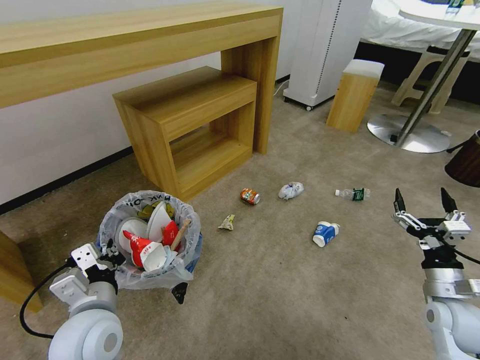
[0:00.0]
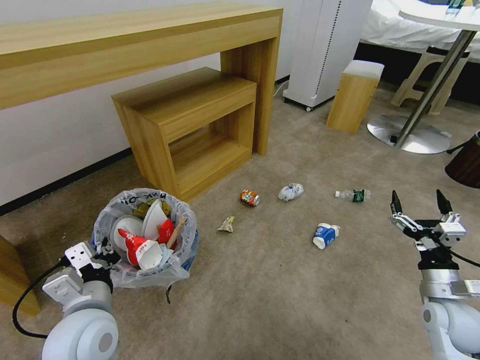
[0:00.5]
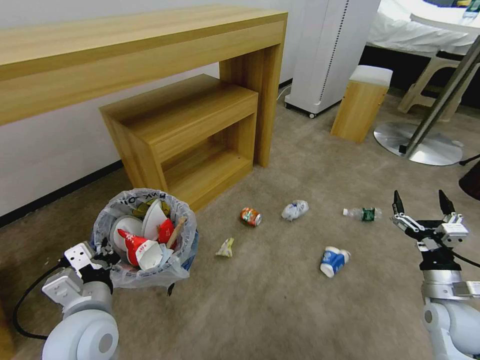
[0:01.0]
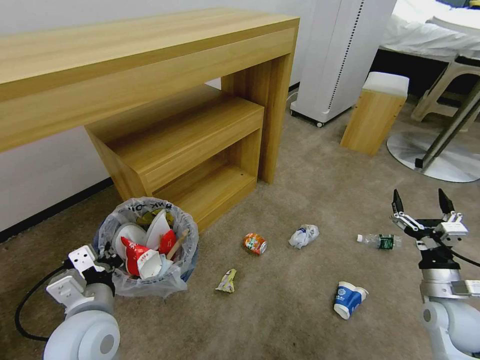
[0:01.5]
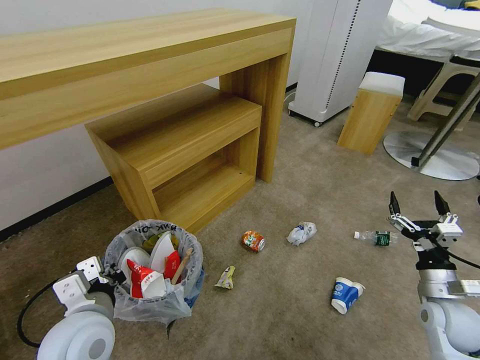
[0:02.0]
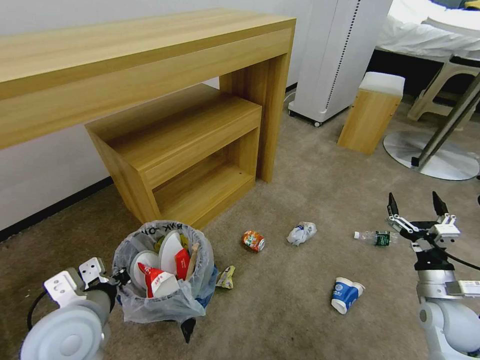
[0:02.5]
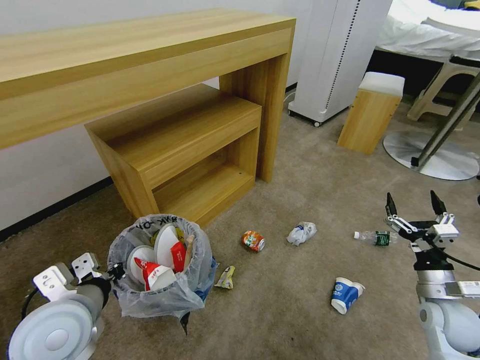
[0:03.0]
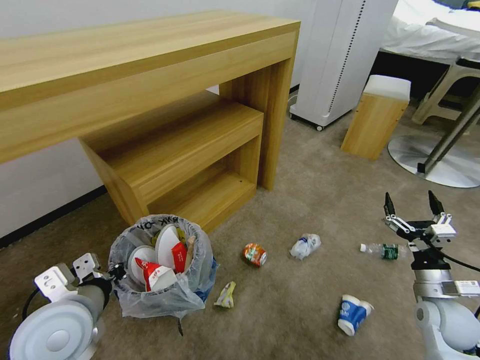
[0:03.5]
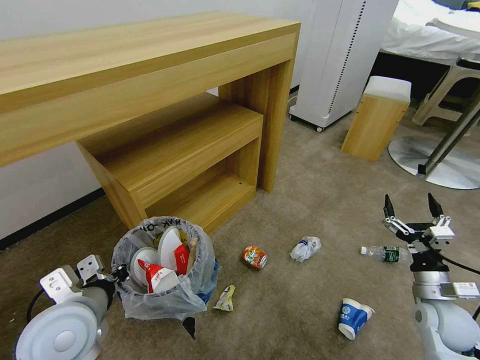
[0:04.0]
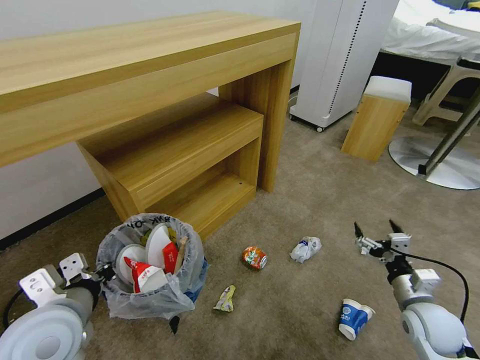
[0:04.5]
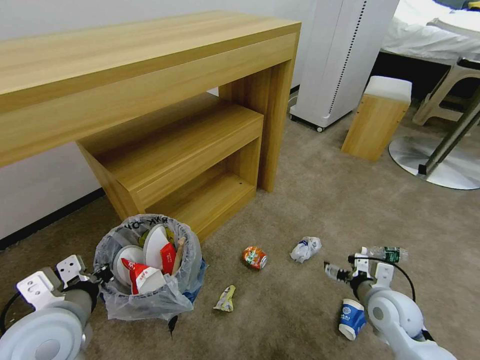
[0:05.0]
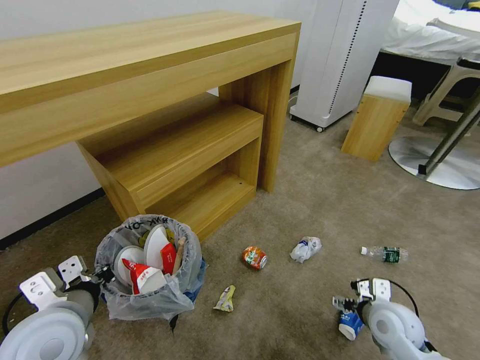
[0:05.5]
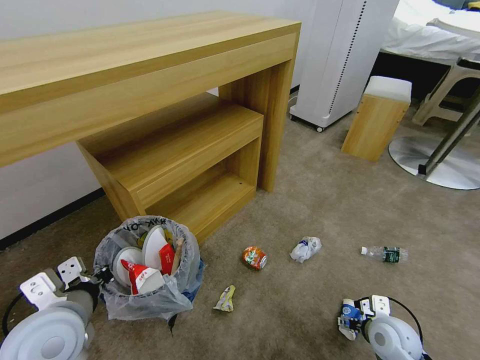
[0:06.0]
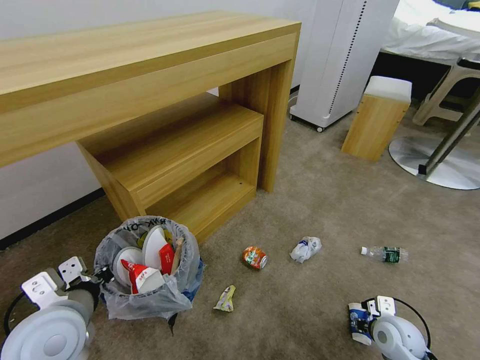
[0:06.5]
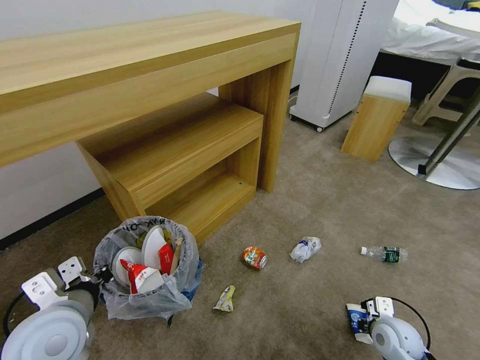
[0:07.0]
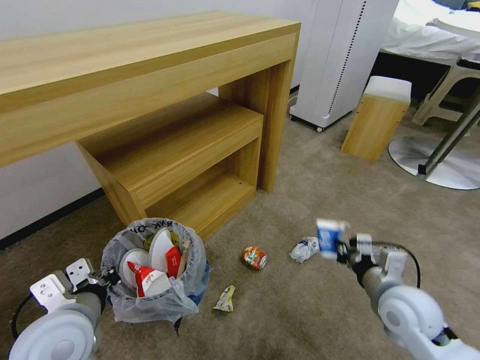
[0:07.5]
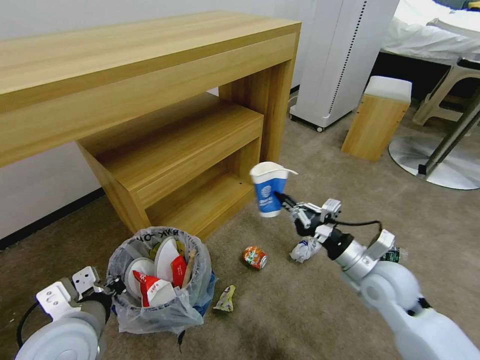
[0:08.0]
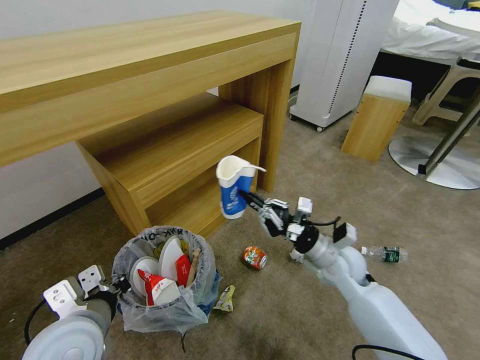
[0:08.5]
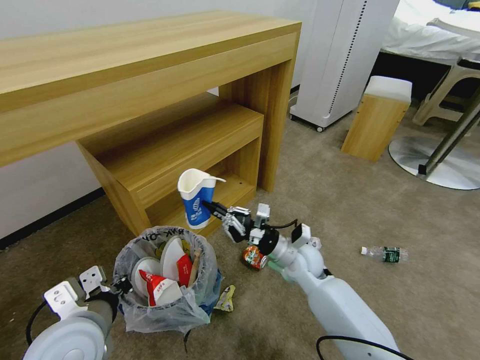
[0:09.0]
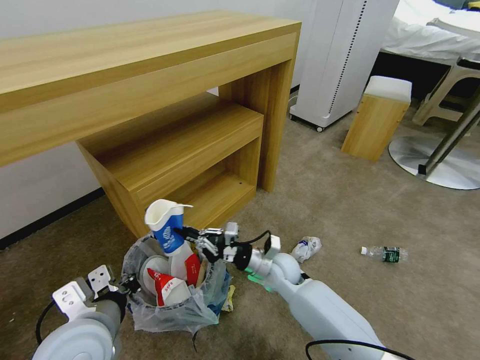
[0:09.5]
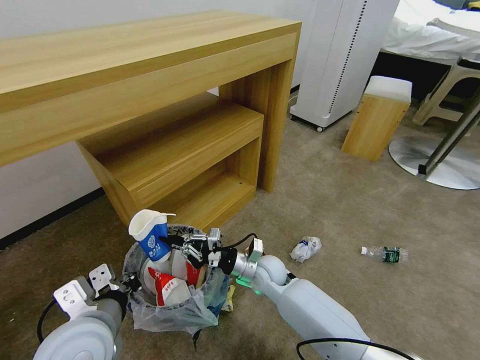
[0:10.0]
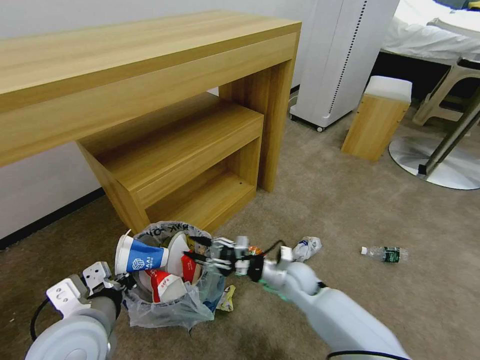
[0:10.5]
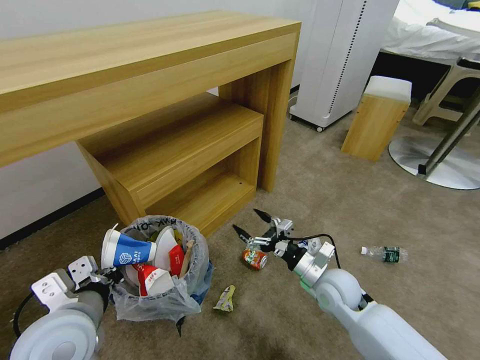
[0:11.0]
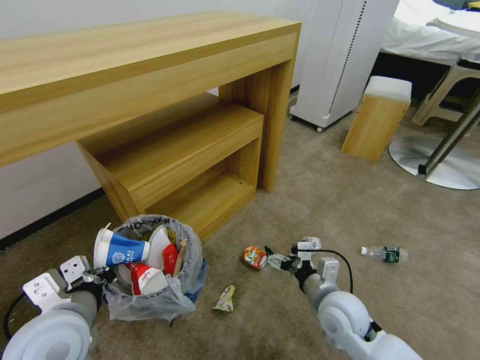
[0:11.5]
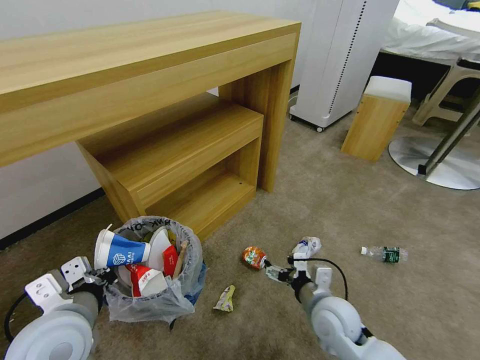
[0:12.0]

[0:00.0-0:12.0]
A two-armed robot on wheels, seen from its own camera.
Task of the whole recording: Pick up the trash bin and place the garbage on the floor into it.
4.0 to 6.0 s: The right gripper moves to the left and downward, roughly 10 cm.
6.0 to 8.0 s: The right gripper shifts some 15 cm upward and forward, and closes up.
8.0 to 10.0 s: The right gripper heads to the left, downward and forward, covering approximately 25 cm.
10.0 to 12.0 s: The right gripper is displaced to the right and backward by approximately 20 cm, and opens up.

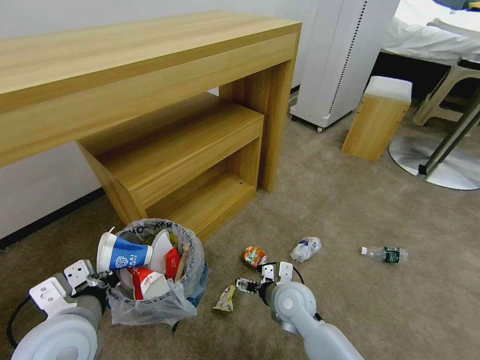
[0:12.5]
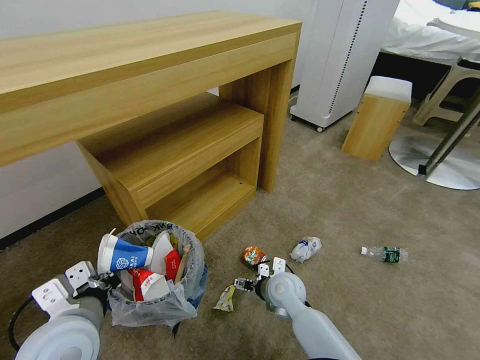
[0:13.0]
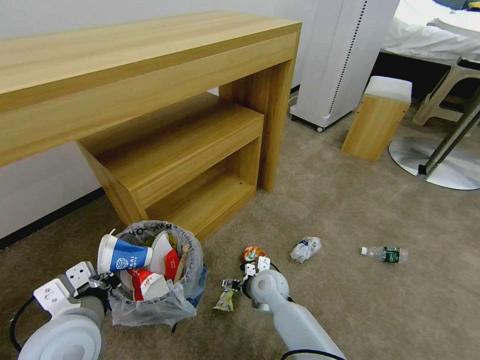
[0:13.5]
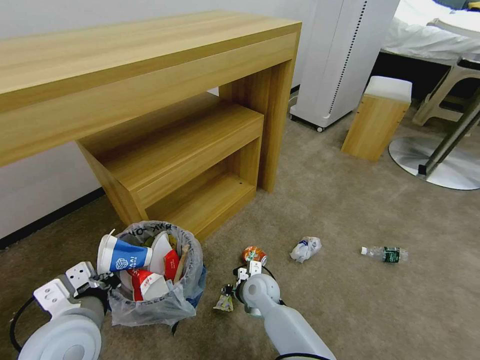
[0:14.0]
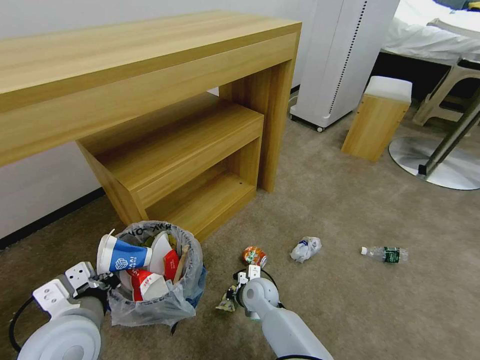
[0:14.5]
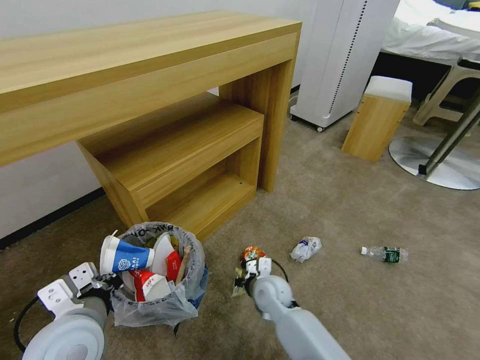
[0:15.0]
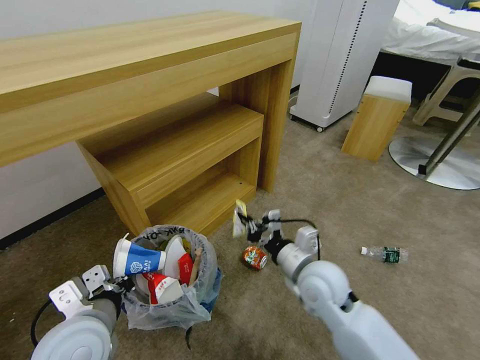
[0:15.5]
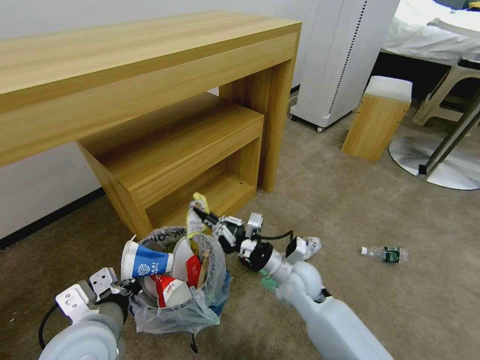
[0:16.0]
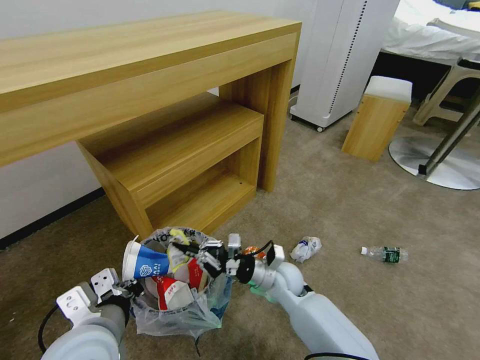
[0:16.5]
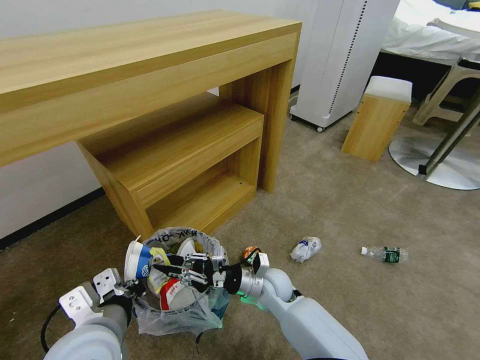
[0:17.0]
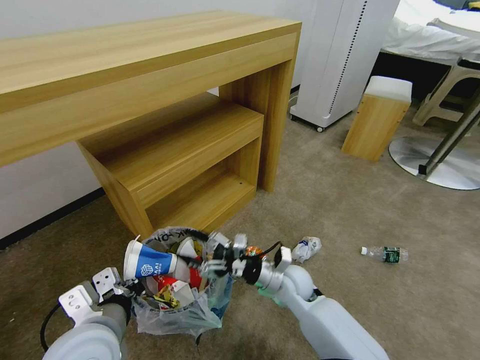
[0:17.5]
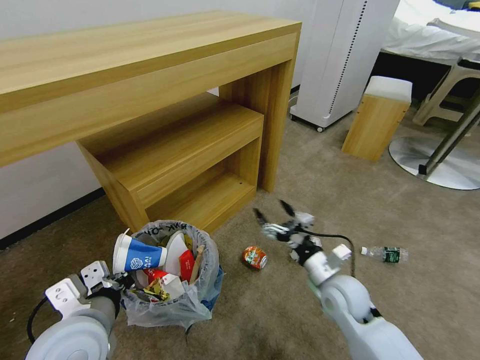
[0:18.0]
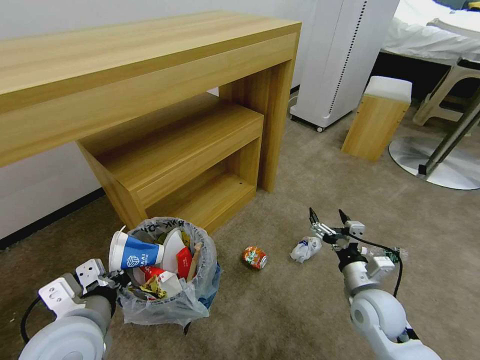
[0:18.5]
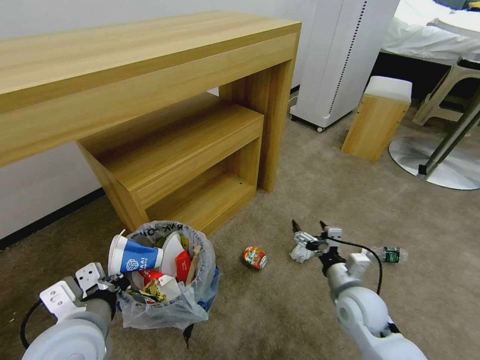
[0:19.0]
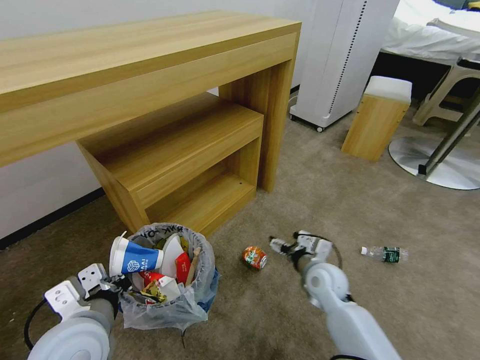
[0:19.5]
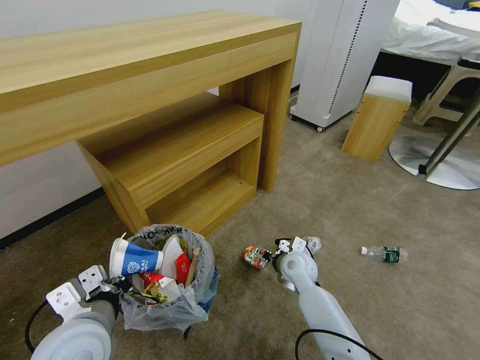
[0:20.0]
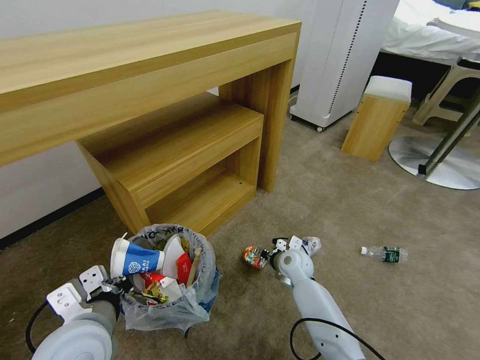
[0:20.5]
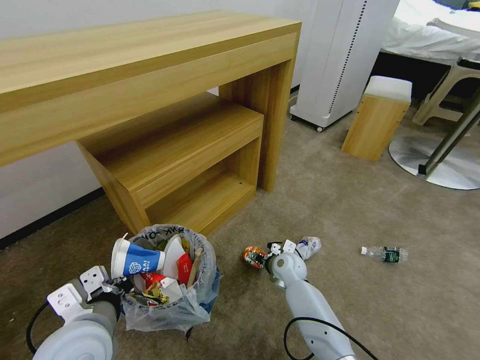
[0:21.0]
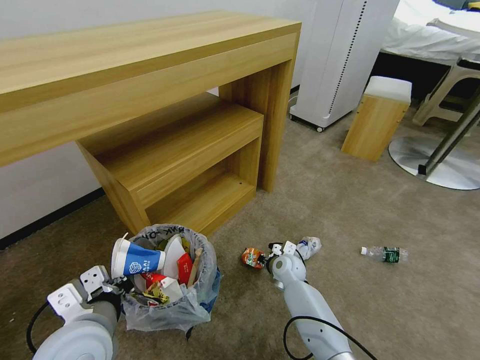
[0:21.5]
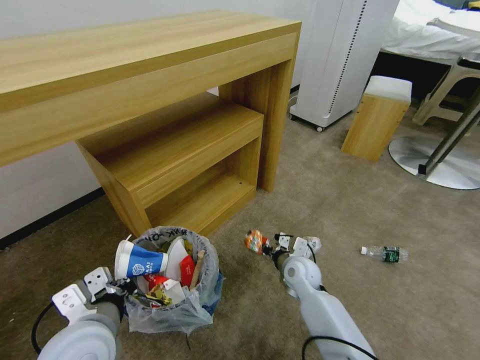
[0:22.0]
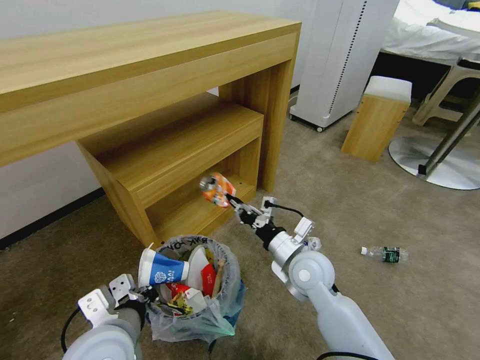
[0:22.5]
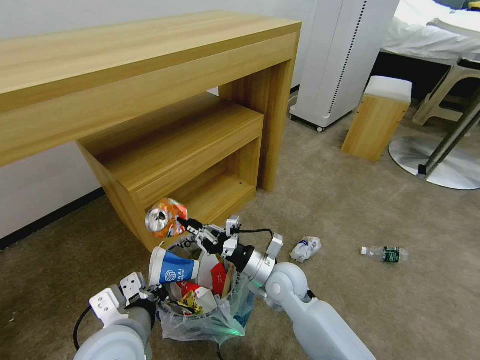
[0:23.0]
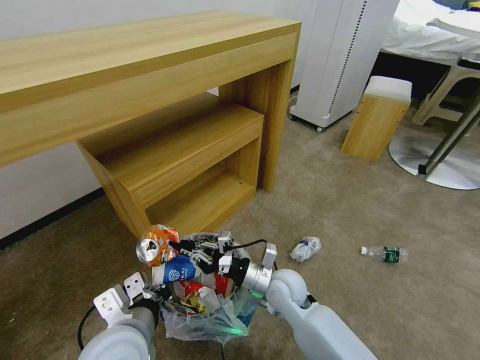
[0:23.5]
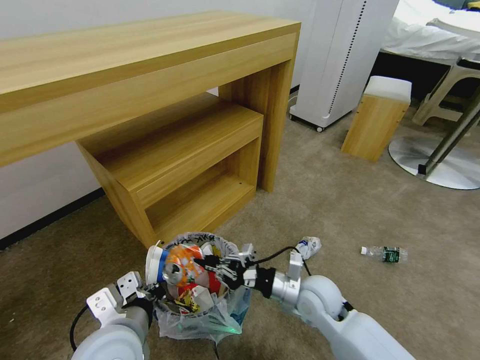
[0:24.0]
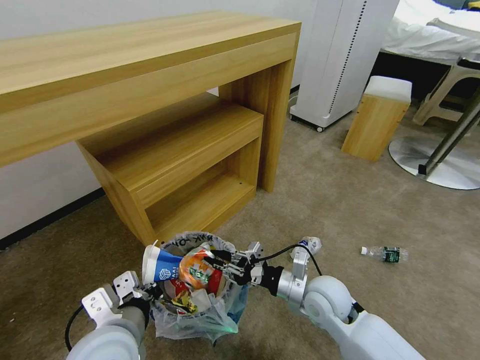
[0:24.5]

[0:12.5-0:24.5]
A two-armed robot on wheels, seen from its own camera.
Task of the whole recording: Pick up the trash bin and place the garbage on the floor into it.
12.5 to 14.5 s: The right gripper travels downward and to the left by some 10 cm, and closes.
14.5 to 16.5 s: The right gripper moves upward and to the right, about 10 cm.
16.5 to 18.5 s: The right gripper moves to the right and backward, approximately 20 cm, and opens.
18.5 to 20.5 s: The right gripper moves forward, to the left and downward, about 20 cm.
20.5 to 22.5 s: The right gripper travels upward and backward by about 15 cm, and closes its fingers.
22.5 to 24.5 s: The right gripper changes place by roughly 5 cm.

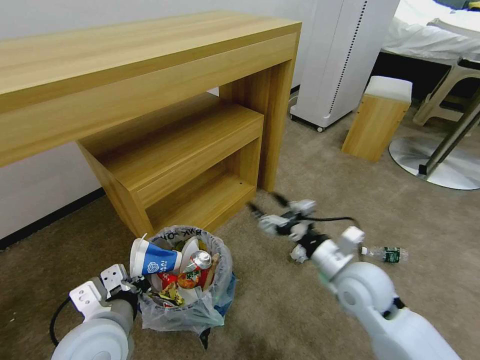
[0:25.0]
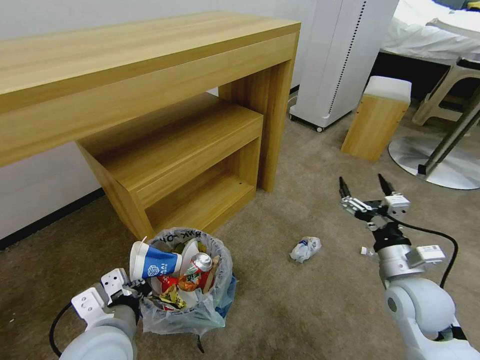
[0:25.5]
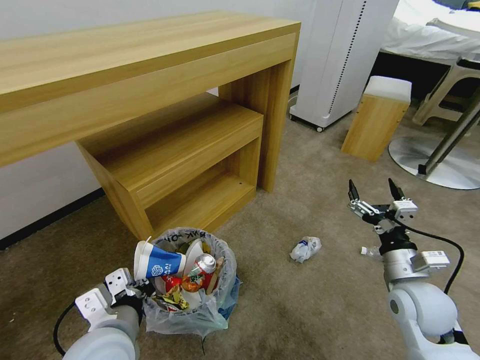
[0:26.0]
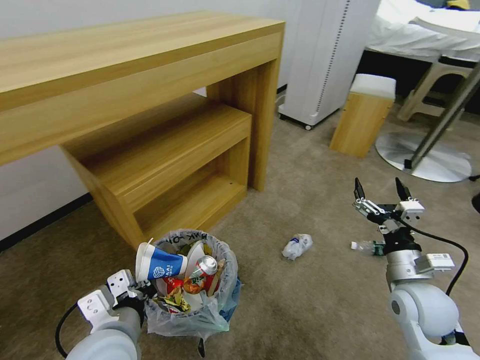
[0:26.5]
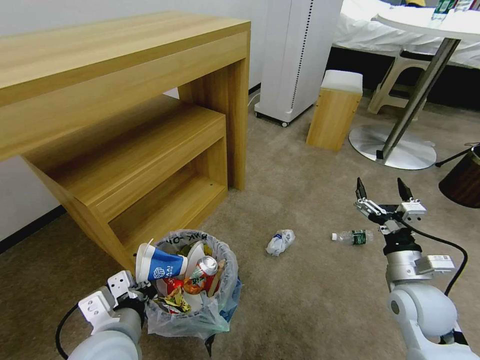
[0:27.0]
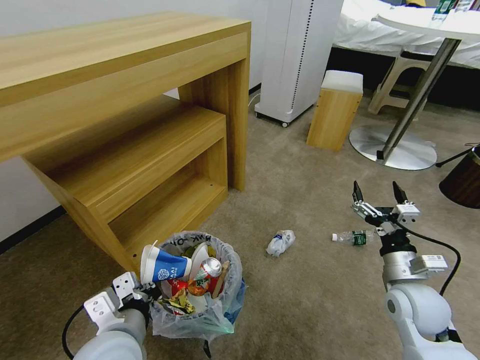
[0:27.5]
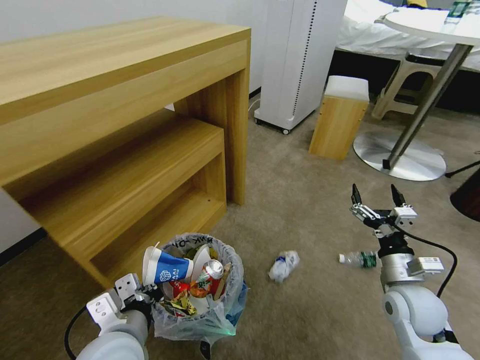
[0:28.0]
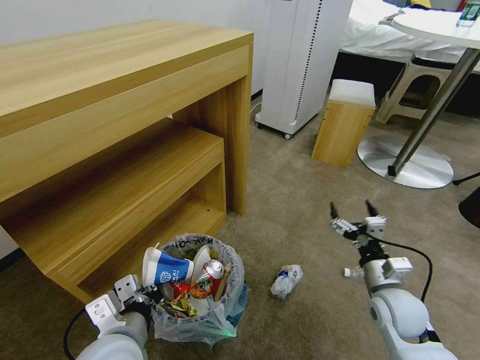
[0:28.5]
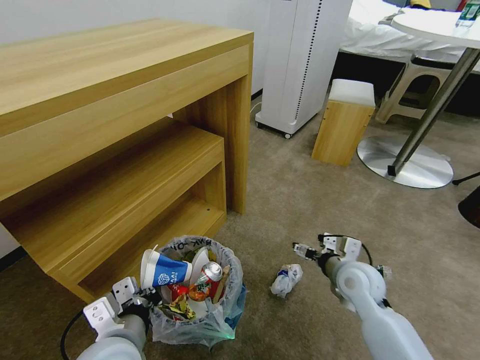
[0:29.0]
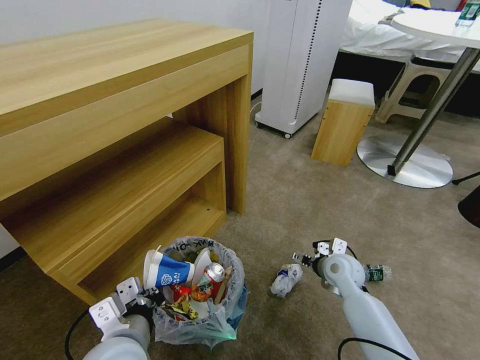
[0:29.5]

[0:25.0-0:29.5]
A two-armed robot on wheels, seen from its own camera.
Task of the whole recording: Pick up the trash bin and place the garbage on the floor into it.
25.0 to 27.0 s: The right gripper is displaced to the right by some 10 cm.
27.0 to 29.5 s: The right gripper shifts approximately 15 cm forward, downward and to the left.
